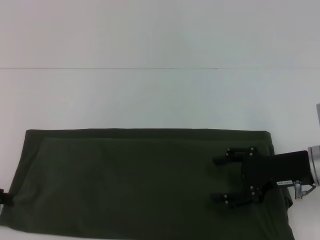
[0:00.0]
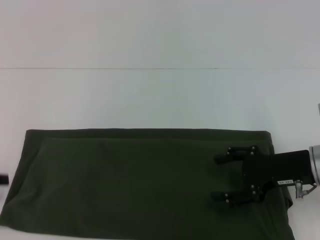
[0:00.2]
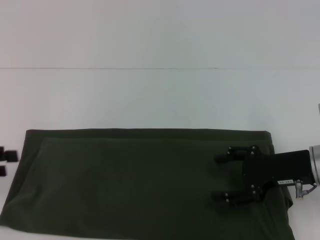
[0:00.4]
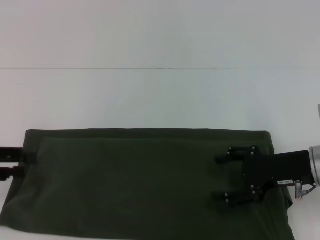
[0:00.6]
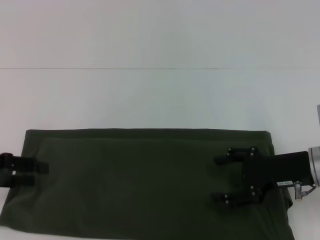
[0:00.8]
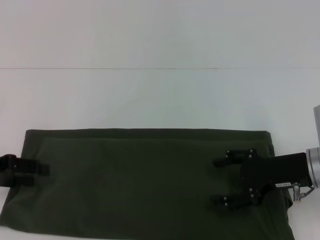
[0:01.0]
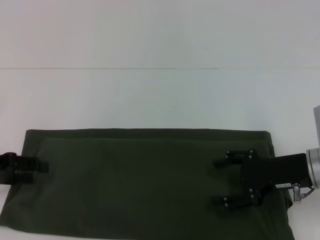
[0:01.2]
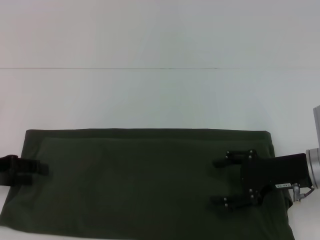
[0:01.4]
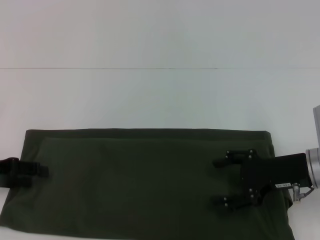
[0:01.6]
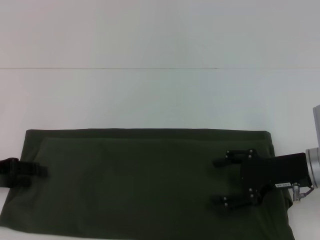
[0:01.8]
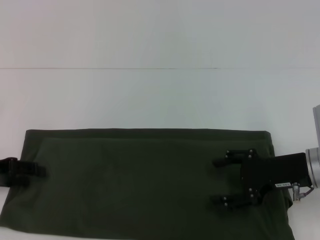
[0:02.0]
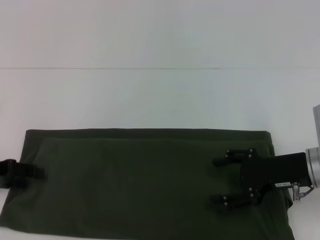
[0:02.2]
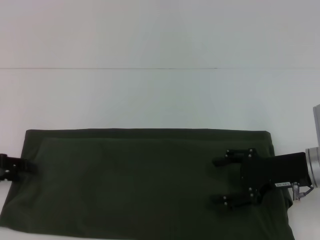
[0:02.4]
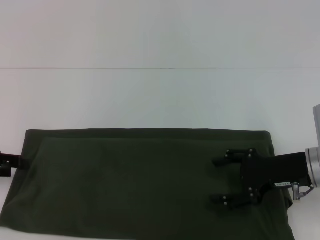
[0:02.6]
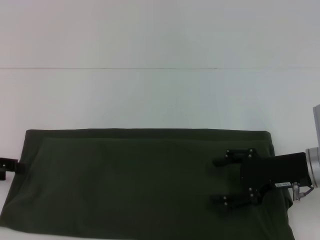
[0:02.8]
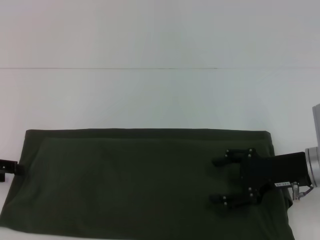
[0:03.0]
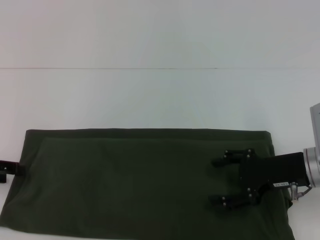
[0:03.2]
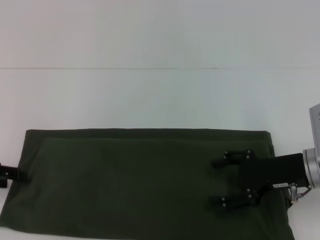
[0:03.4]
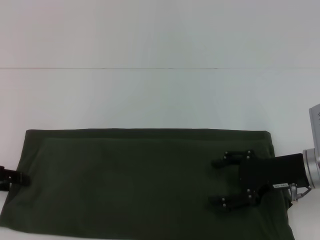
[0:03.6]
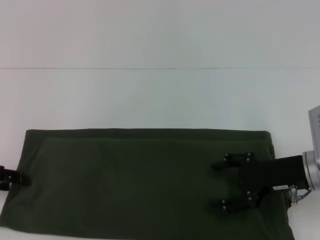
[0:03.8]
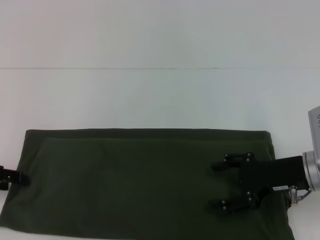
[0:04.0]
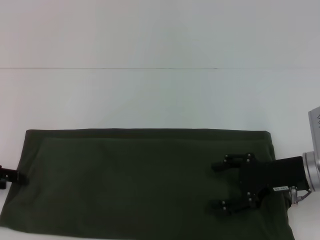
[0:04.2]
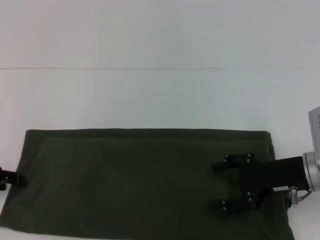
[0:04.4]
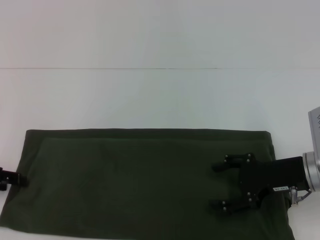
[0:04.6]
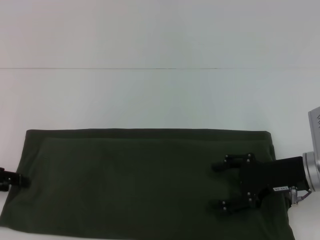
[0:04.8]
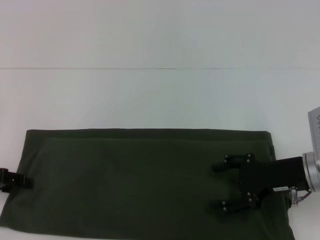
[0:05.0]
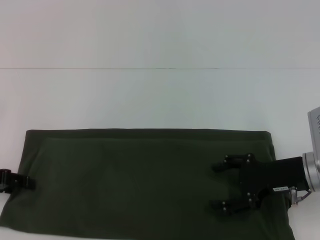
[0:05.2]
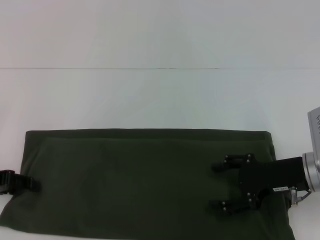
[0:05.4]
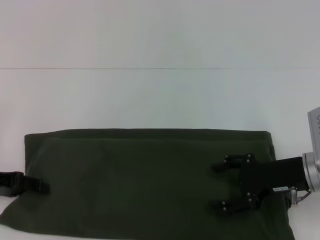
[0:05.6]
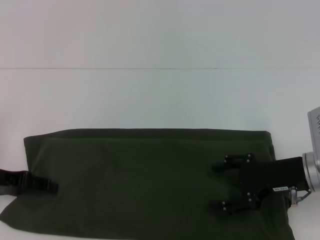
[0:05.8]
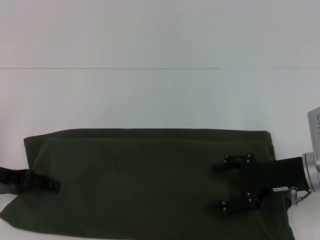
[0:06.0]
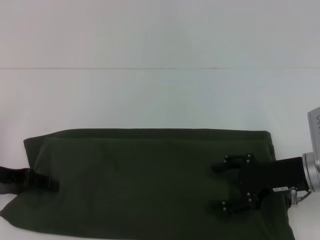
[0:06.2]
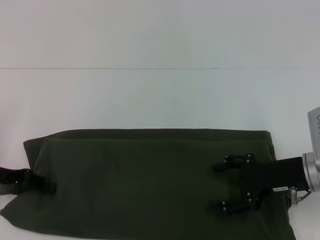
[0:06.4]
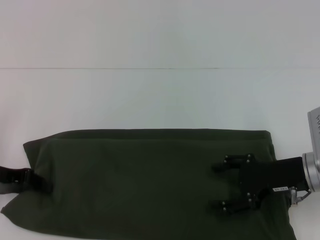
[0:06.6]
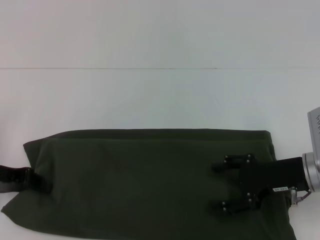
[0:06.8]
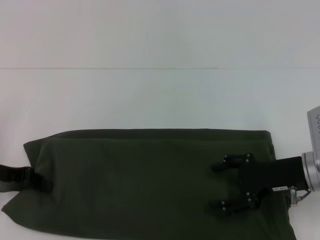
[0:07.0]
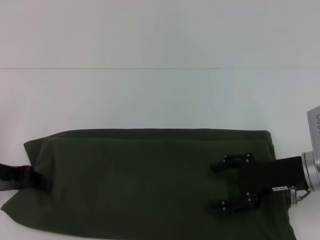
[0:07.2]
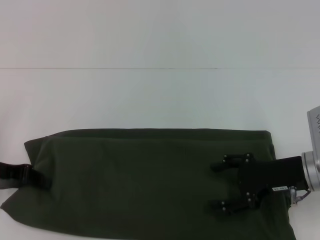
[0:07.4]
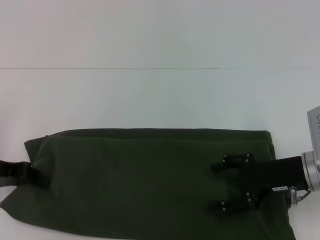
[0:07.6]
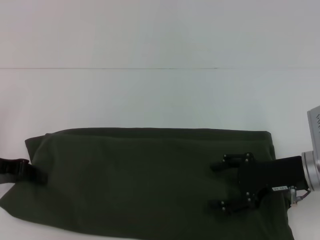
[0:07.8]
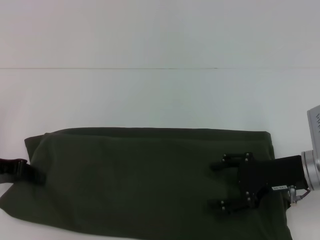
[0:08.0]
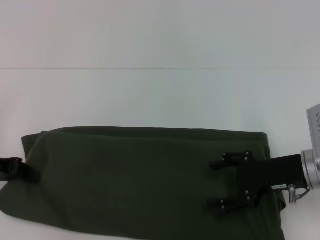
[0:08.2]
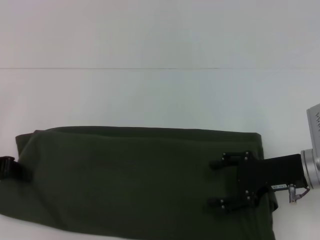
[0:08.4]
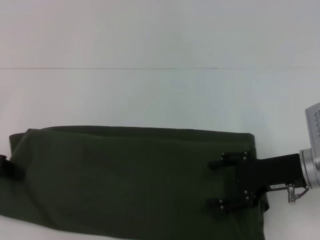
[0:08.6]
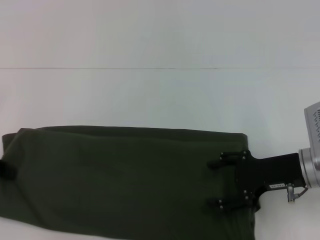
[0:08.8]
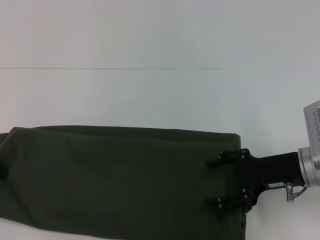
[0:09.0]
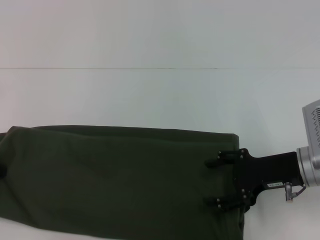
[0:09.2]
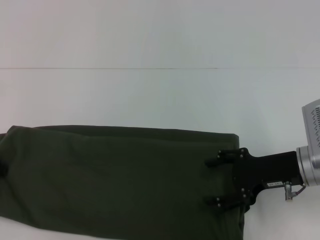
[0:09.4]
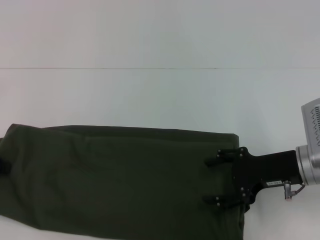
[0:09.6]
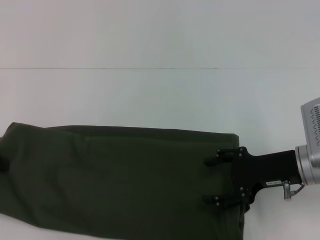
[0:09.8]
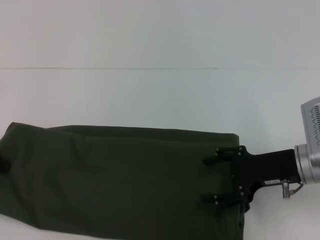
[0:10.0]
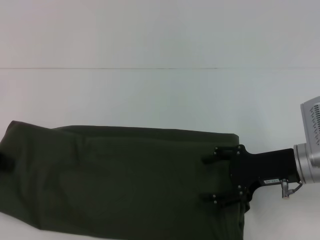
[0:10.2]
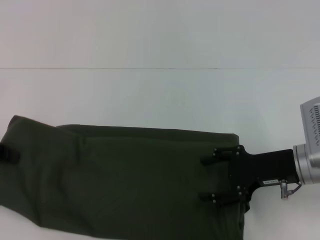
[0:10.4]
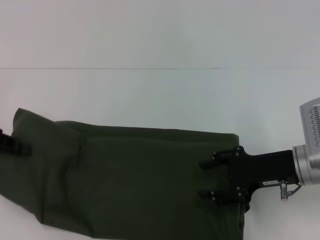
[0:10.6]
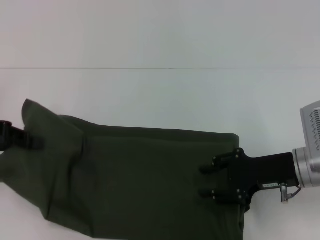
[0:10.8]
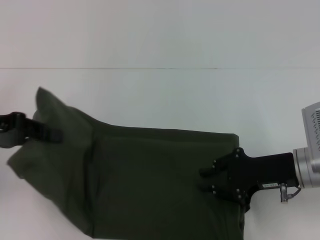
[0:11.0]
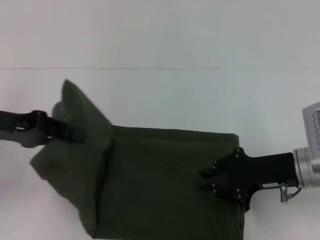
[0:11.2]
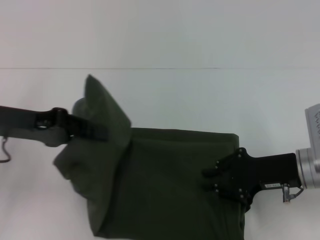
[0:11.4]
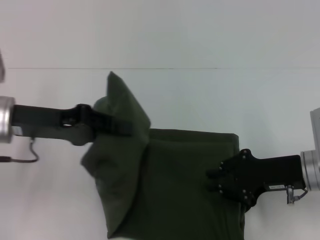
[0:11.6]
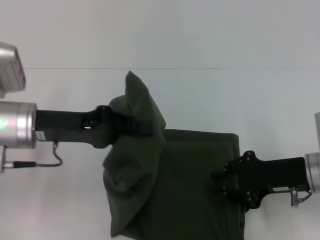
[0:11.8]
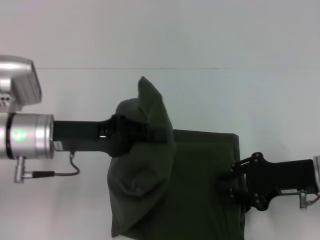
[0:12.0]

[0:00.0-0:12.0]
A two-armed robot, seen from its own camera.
0:00.0 to 0:01.6: The left gripper shifts by approximately 5 cm, and opens its fingers.
0:01.6 to 0:03.0: The grippers stay close to where they were, moving slightly.
0:03.0 to 0:04.4: Both grippers stay about where they are.
0:04.4 to 0:06.0: The grippers move only a little.
0:06.0 to 0:07.6: The left gripper closes up.
0:07.6 to 0:09.0: The left gripper changes place by about 5 cm.
0:09.0 to 0:10.4: The grippers stay close to where they were, moving slightly.
0:10.4 to 0:12.0: The right gripper closes up, while the left gripper travels to the right by approximately 15 cm.

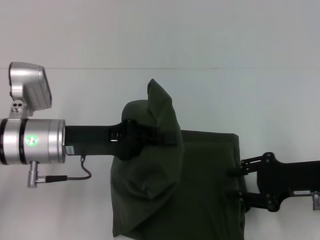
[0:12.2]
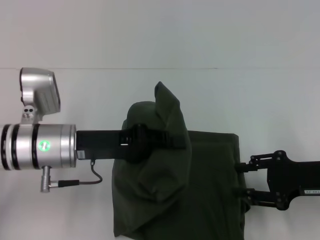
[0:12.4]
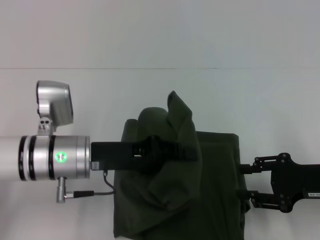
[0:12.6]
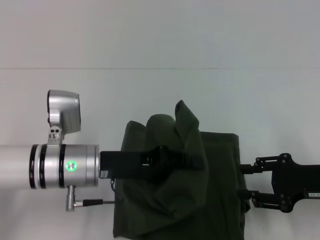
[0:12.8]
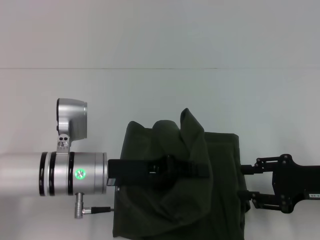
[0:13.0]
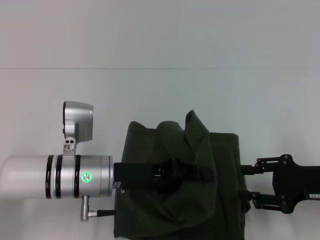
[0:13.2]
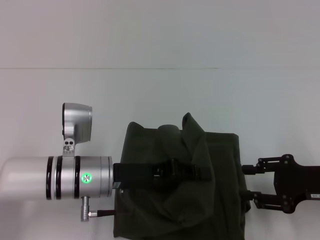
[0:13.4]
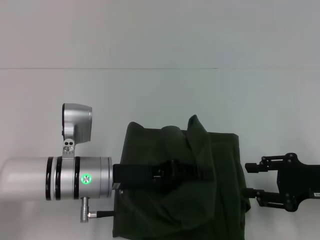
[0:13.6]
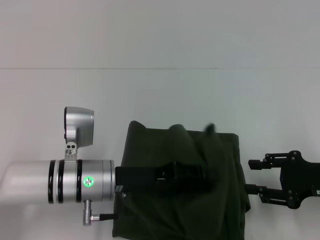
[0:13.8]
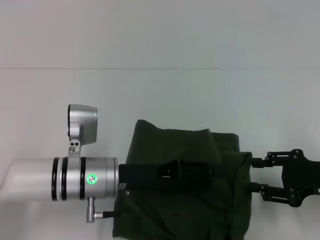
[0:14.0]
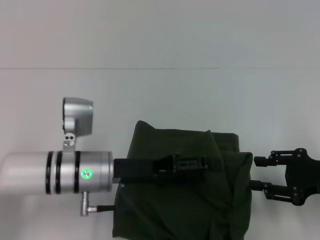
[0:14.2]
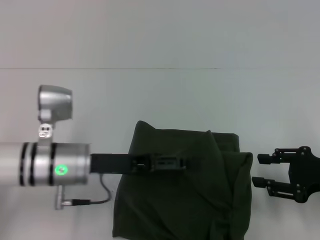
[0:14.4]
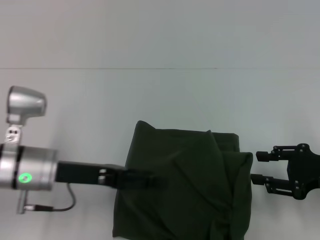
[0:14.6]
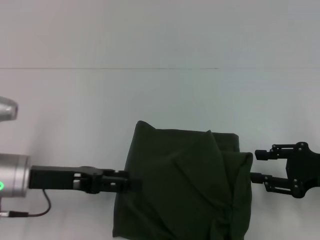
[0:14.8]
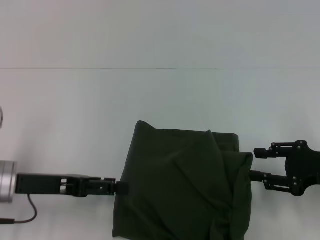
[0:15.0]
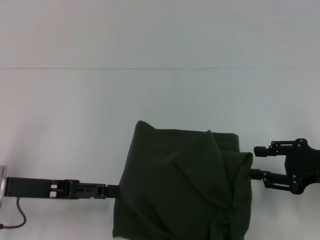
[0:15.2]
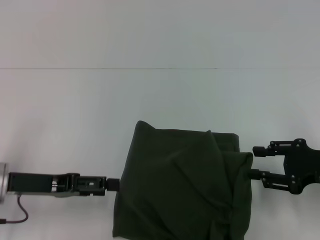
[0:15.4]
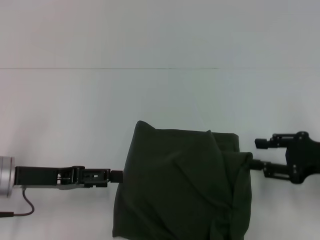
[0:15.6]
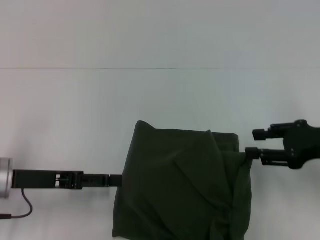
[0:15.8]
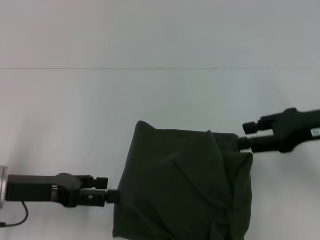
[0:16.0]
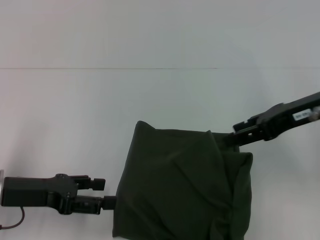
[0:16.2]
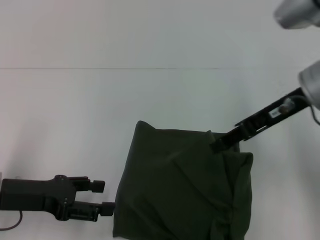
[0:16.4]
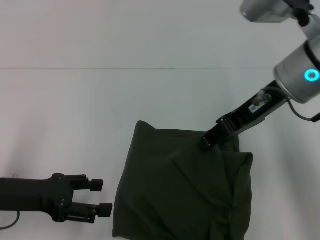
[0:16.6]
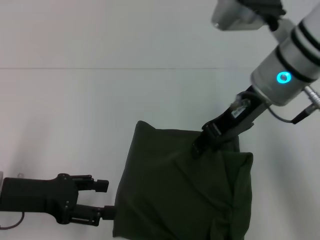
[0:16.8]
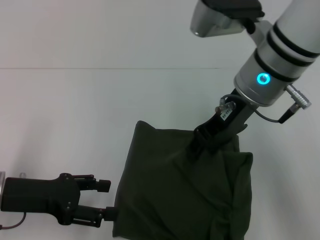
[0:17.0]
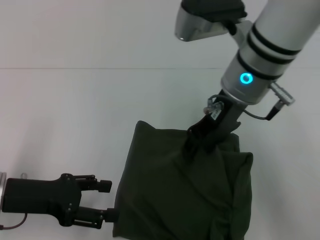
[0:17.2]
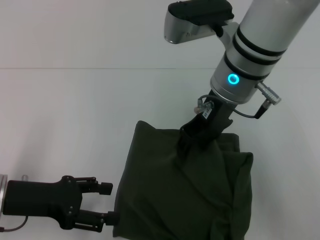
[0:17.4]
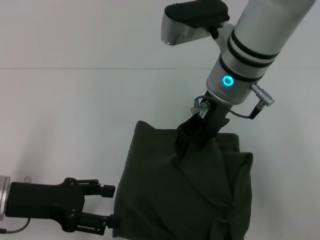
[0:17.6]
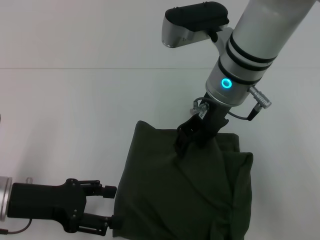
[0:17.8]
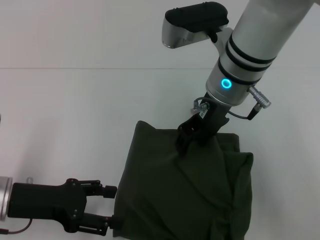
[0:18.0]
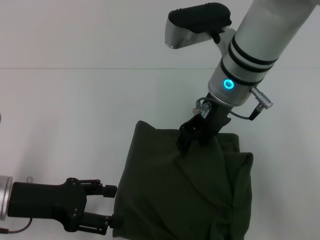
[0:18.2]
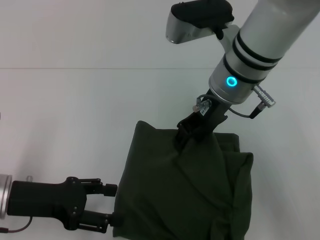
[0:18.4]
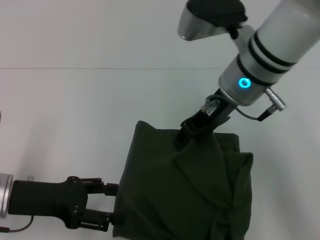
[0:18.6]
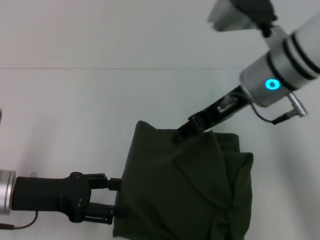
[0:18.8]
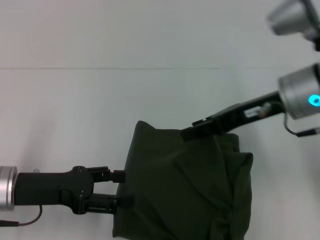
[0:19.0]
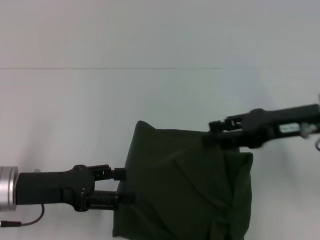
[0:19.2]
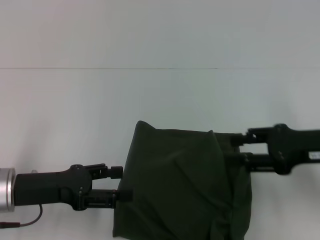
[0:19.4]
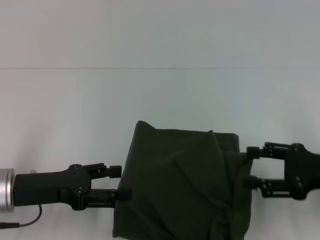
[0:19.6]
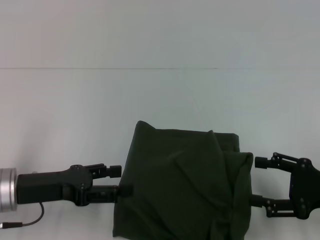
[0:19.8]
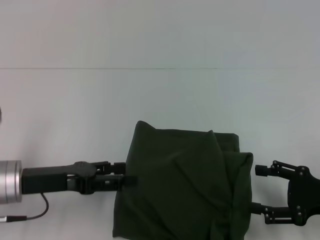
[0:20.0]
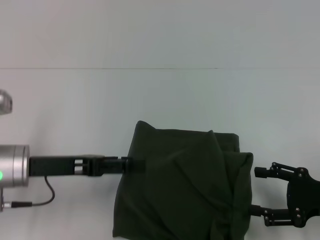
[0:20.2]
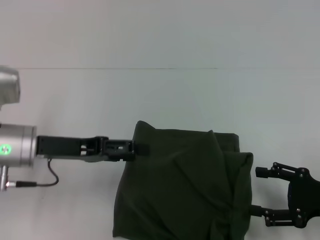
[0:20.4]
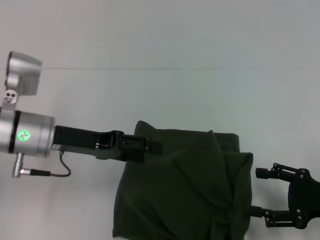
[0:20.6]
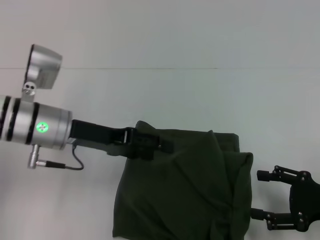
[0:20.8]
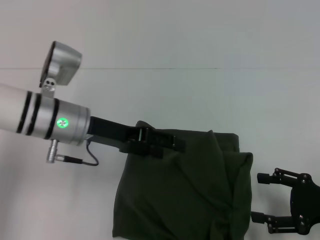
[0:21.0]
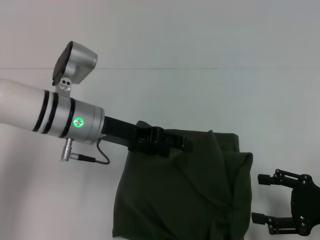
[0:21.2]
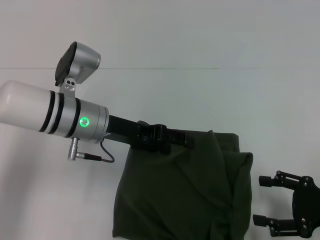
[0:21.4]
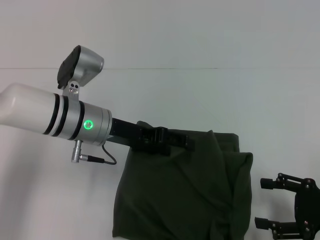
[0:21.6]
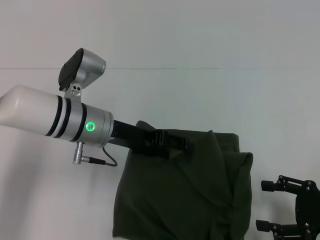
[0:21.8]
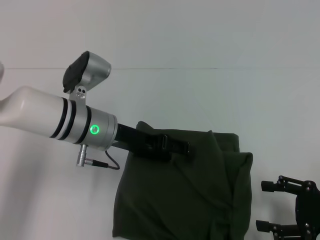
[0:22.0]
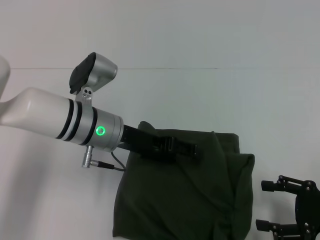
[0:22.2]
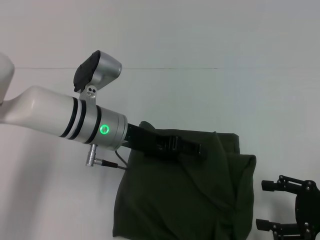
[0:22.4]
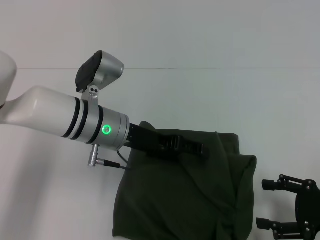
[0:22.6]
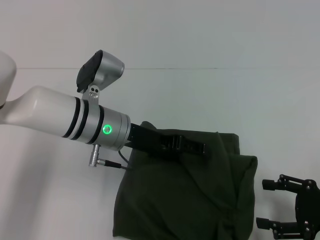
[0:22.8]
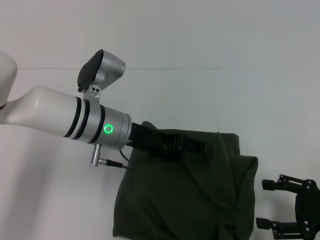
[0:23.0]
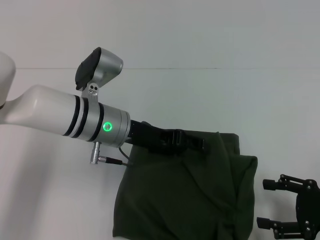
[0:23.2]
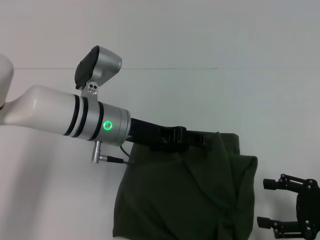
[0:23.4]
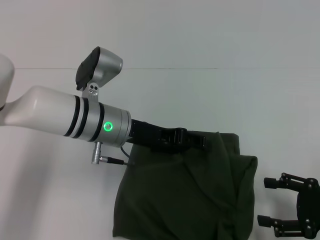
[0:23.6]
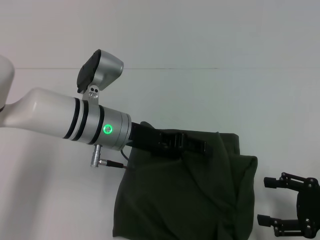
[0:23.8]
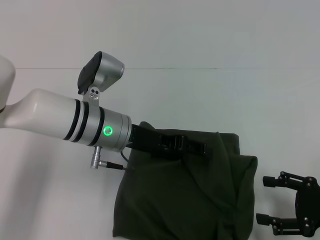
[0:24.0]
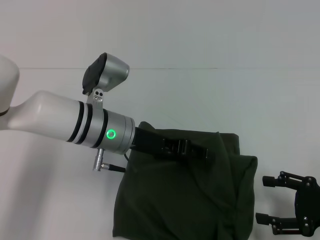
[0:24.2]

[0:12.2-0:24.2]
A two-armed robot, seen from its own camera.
0:12.2 to 0:13.8: The left gripper is displaced to the right and downward by approximately 10 cm.
0:13.8 to 0:15.2: The left gripper shifts approximately 15 cm to the left, and opens up.
0:15.2 to 0:16.6: The right gripper heads to the left, upward and forward, covering some 20 cm.
0:16.6 to 0:18.2: The right gripper goes about 10 cm to the left.
0:18.2 to 0:19.8: The right gripper moves to the right, backward and downward, some 30 cm.
0:19.8 to 0:21.2: The left gripper heads to the right and forward, covering approximately 15 cm.
0:21.2 to 0:22.6: The grippers stay close to where they were, moving slightly.
0:22.6 to 0:24.2: The two grippers keep their place.
